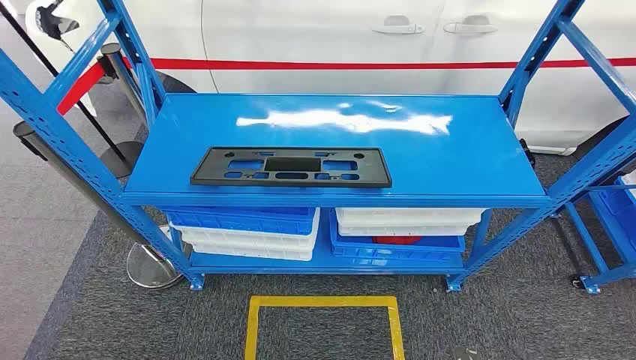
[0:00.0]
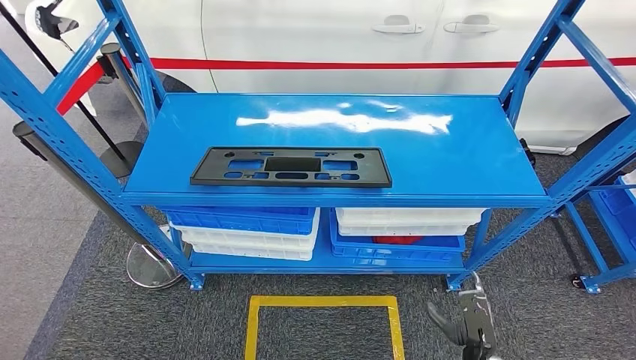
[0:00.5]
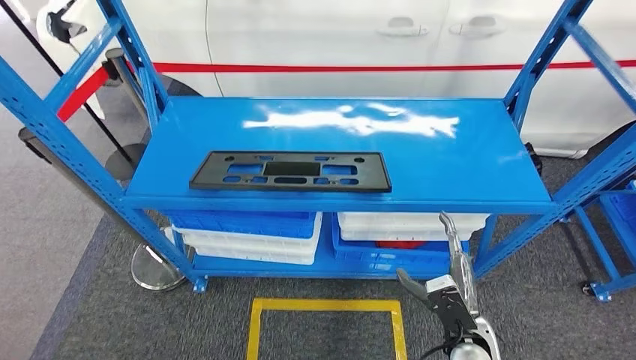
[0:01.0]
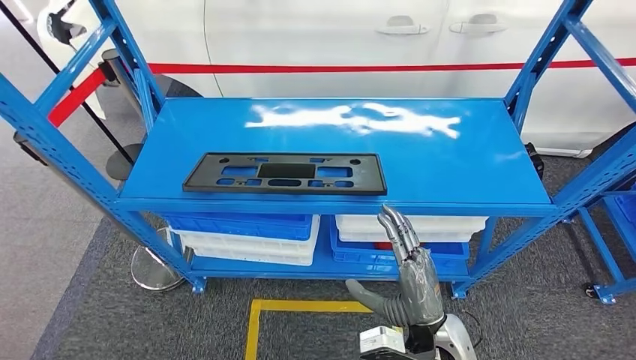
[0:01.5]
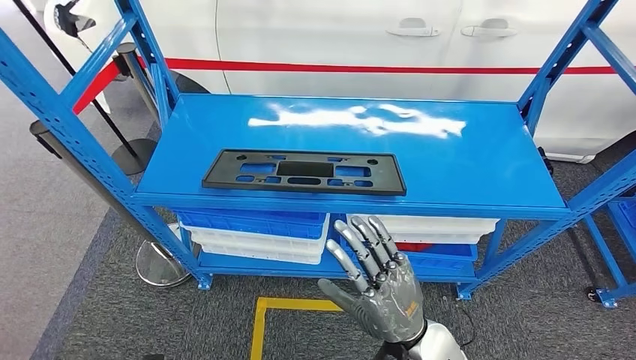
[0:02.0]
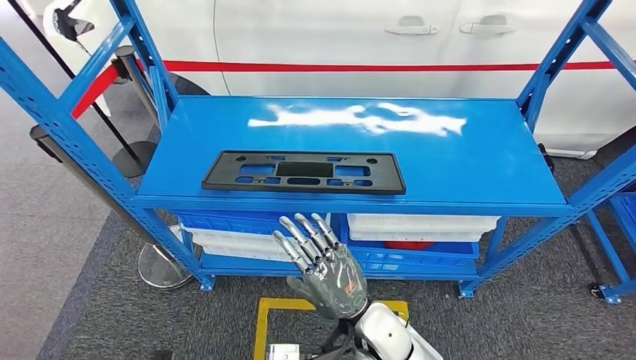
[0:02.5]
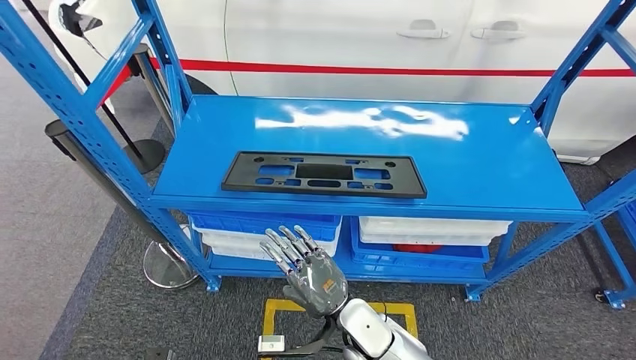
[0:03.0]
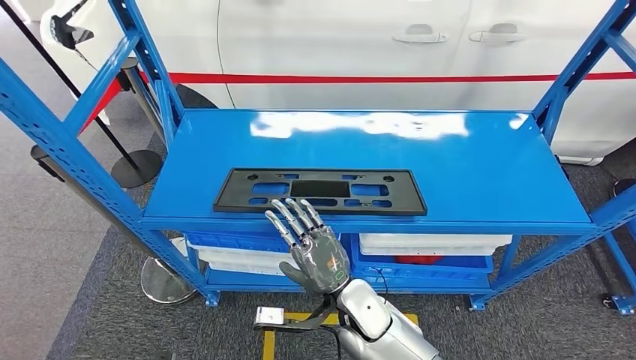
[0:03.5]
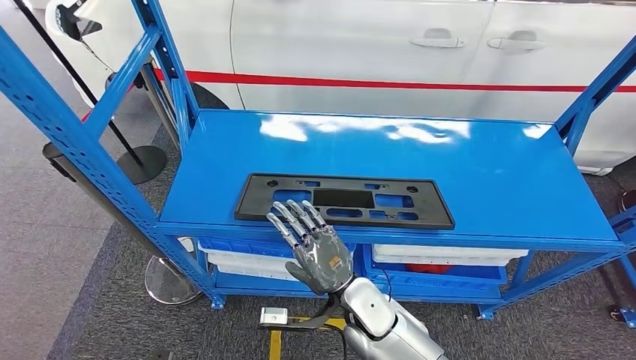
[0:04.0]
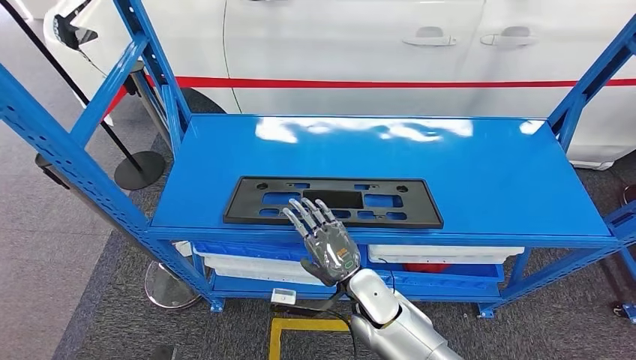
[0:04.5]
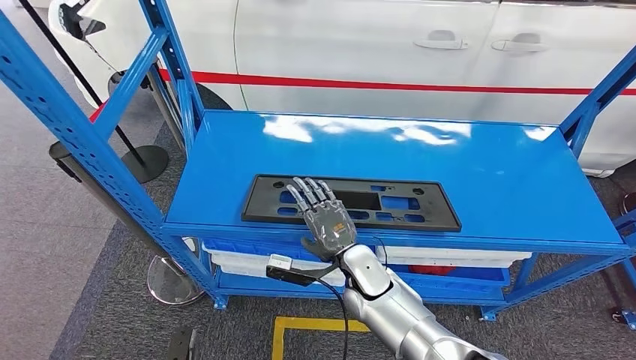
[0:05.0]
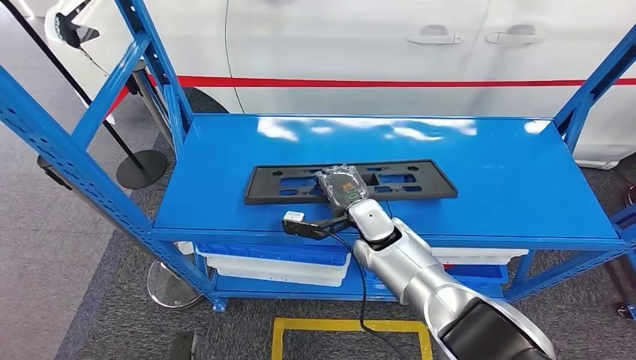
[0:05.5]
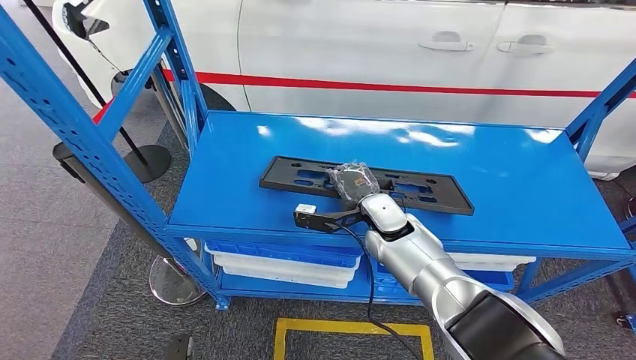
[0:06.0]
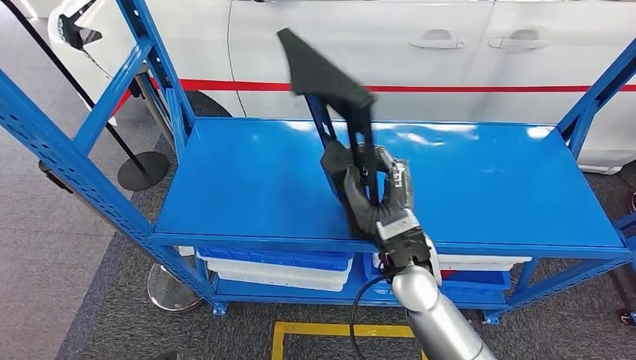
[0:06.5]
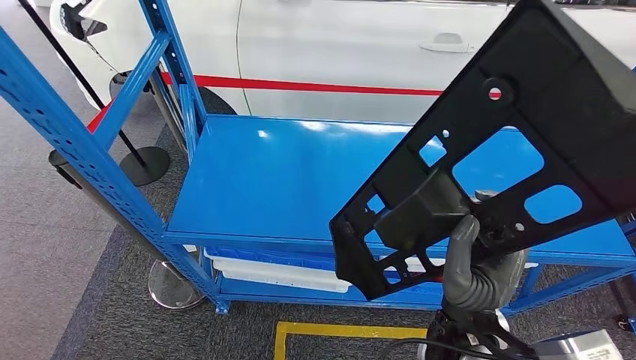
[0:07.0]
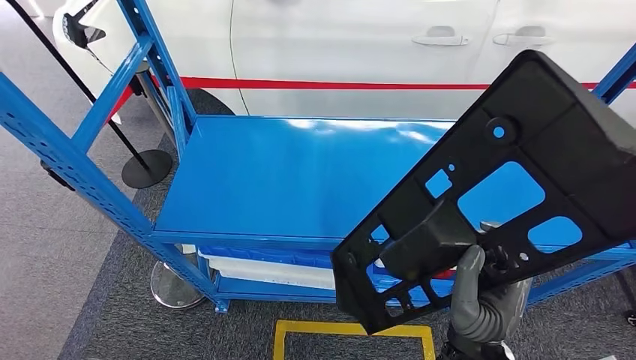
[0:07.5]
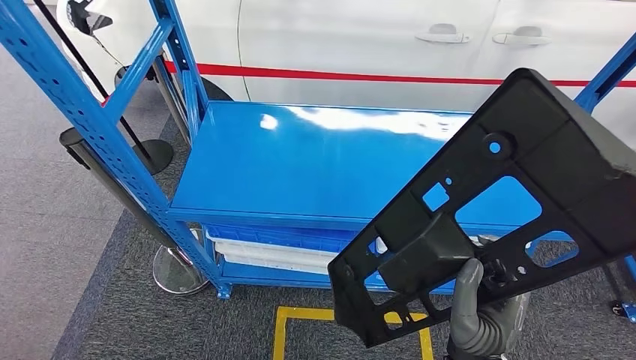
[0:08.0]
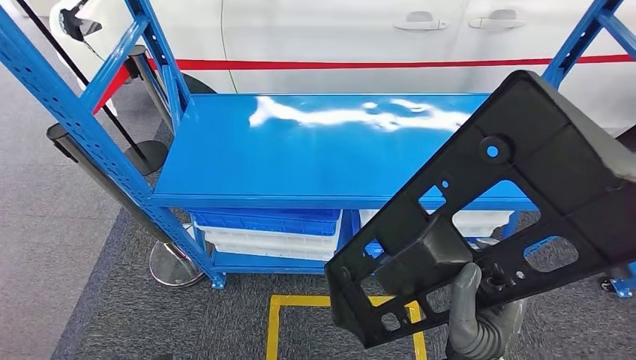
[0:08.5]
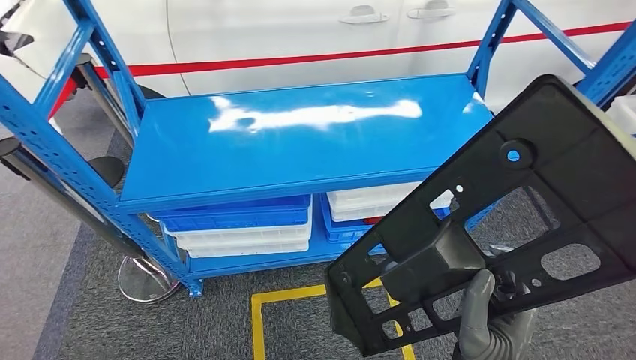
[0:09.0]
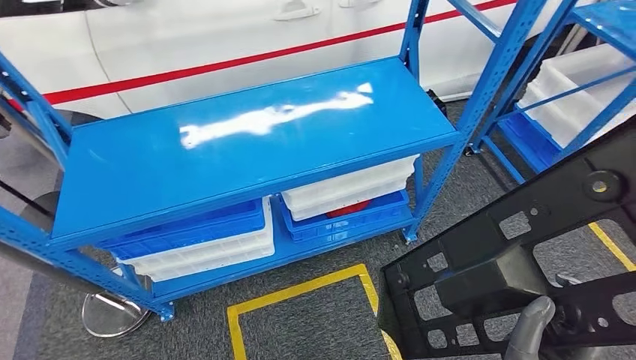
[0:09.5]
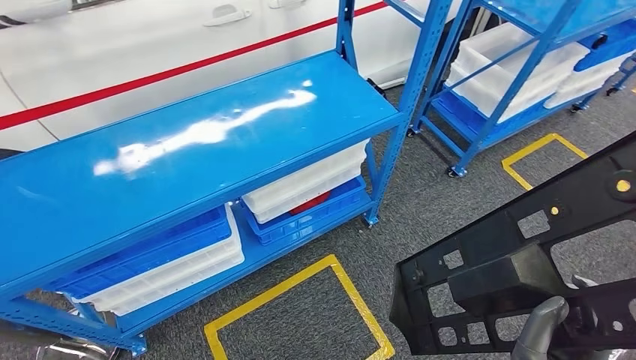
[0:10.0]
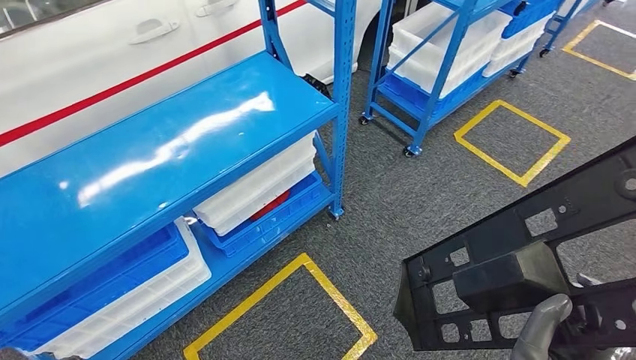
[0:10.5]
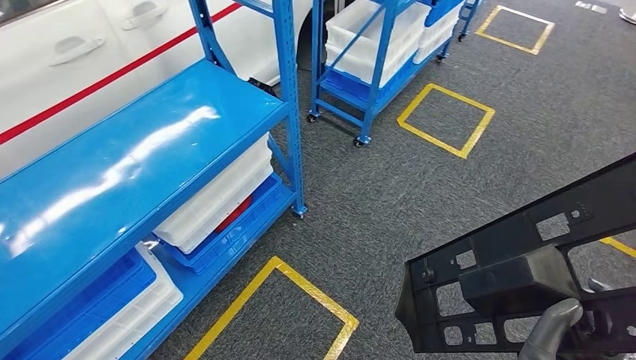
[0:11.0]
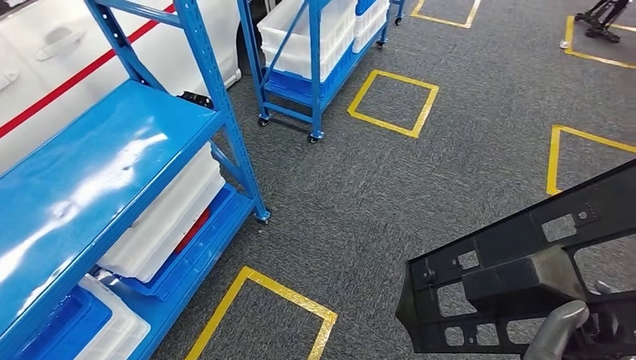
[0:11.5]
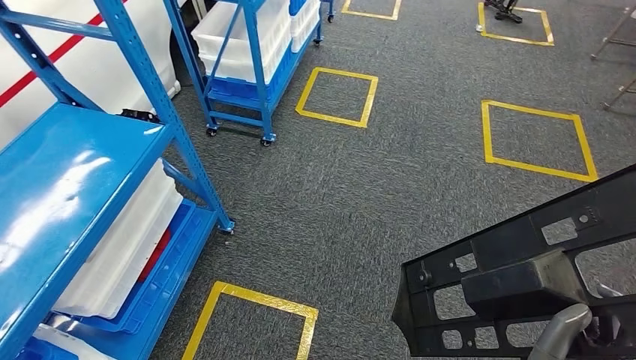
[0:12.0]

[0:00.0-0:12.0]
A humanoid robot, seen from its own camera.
Step, 0:00.0 to 0:07.5: Pick up the large material from the shelf.

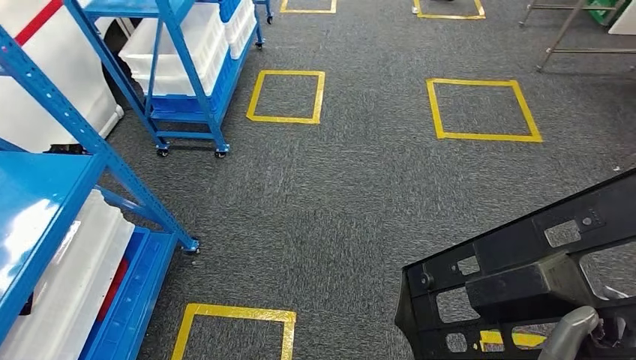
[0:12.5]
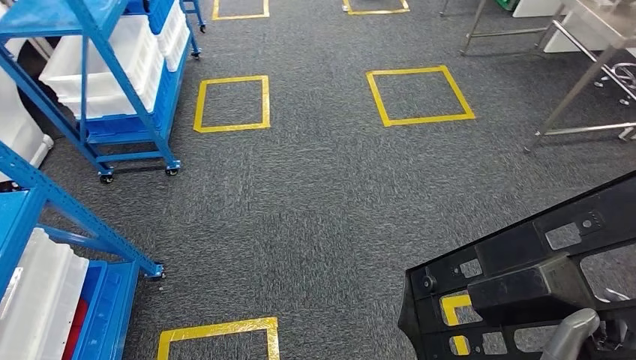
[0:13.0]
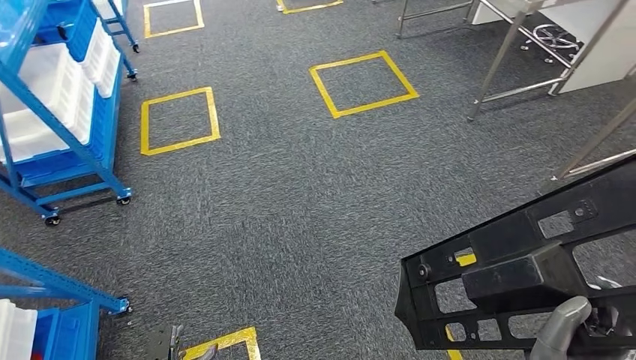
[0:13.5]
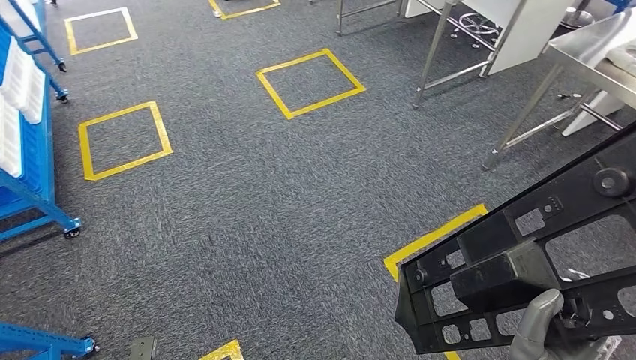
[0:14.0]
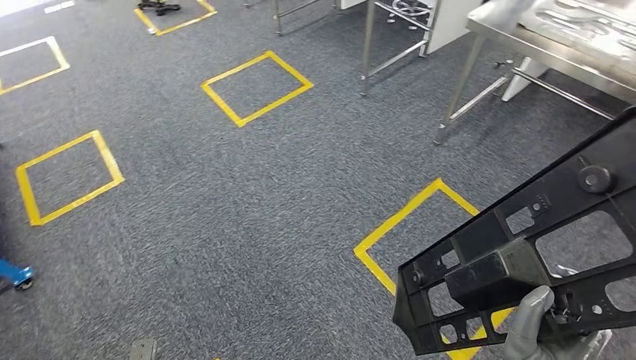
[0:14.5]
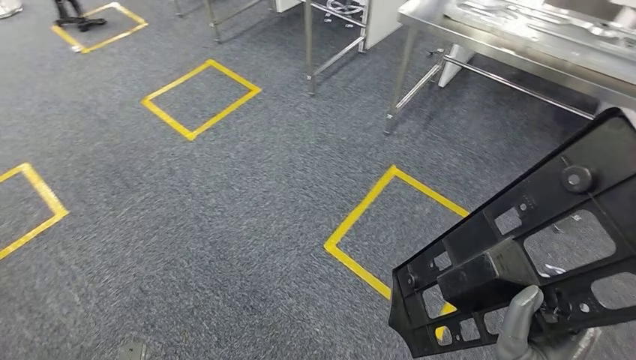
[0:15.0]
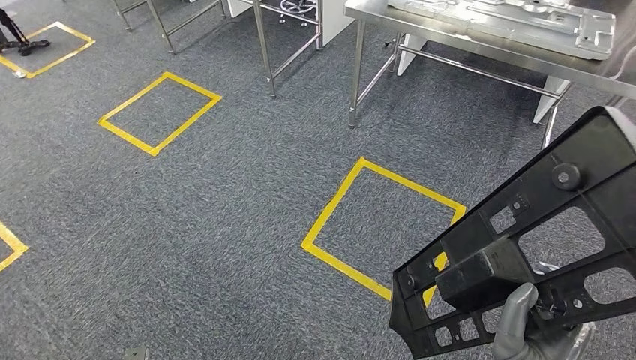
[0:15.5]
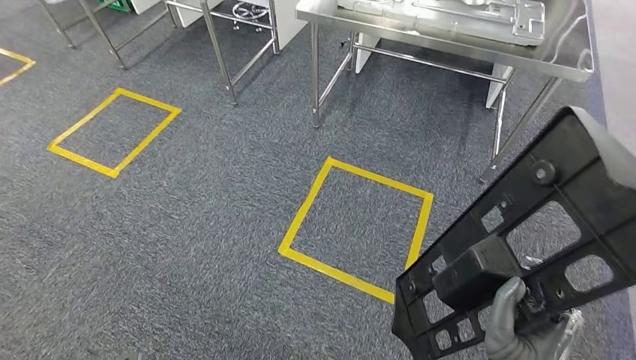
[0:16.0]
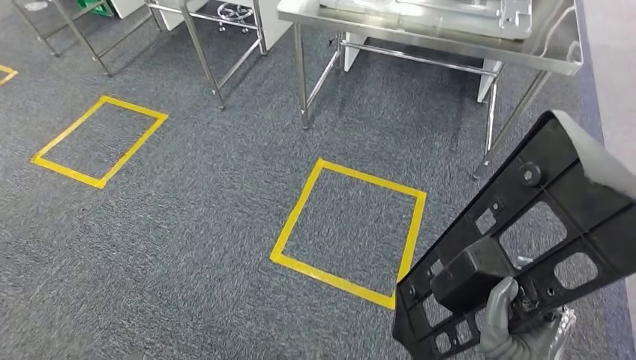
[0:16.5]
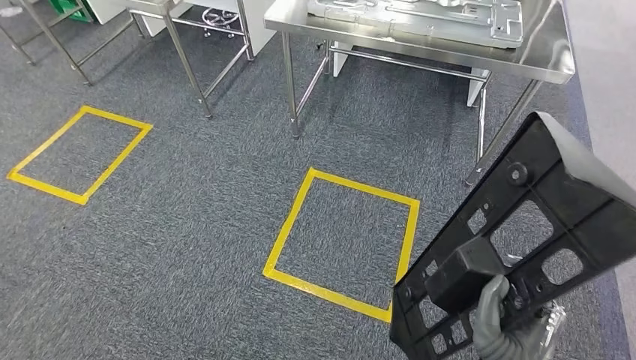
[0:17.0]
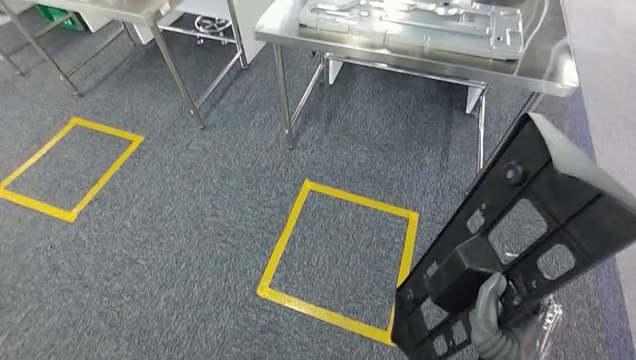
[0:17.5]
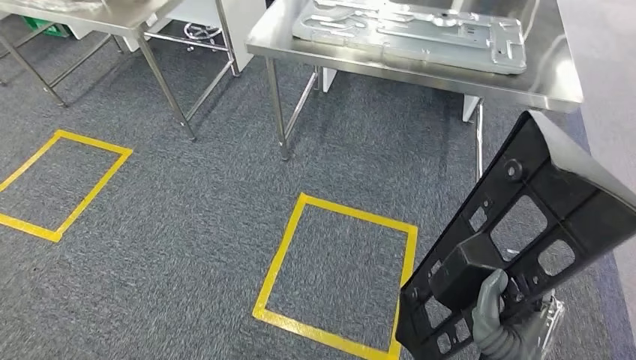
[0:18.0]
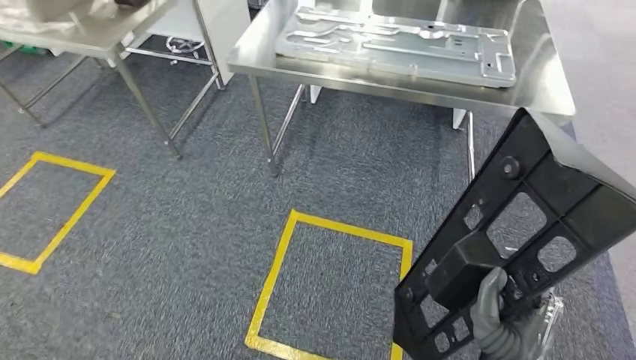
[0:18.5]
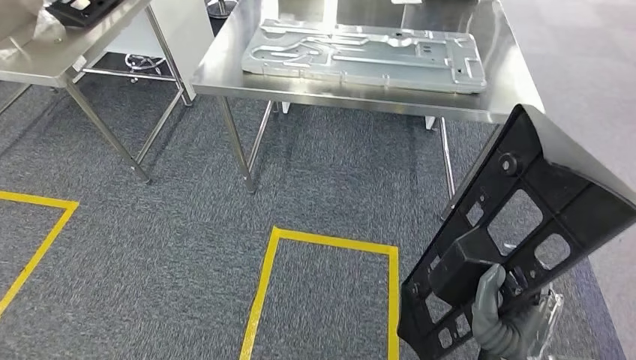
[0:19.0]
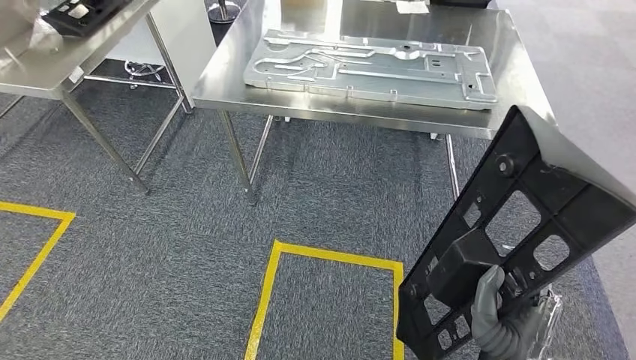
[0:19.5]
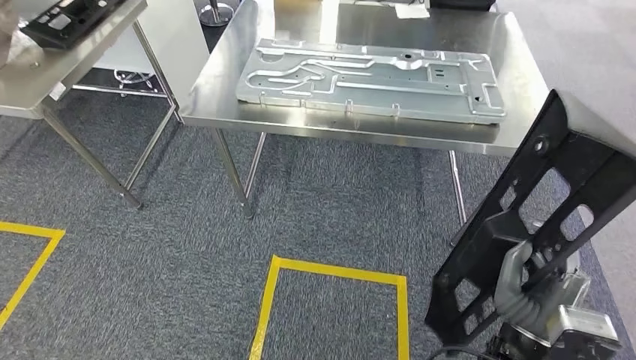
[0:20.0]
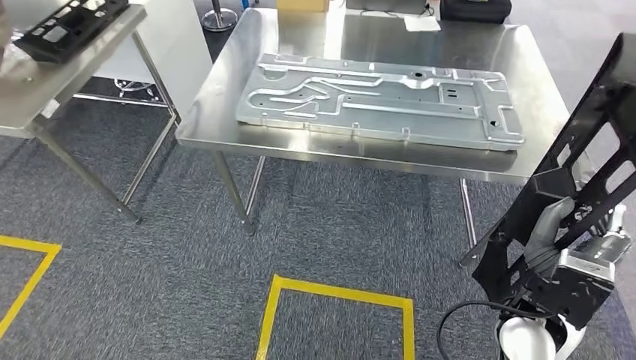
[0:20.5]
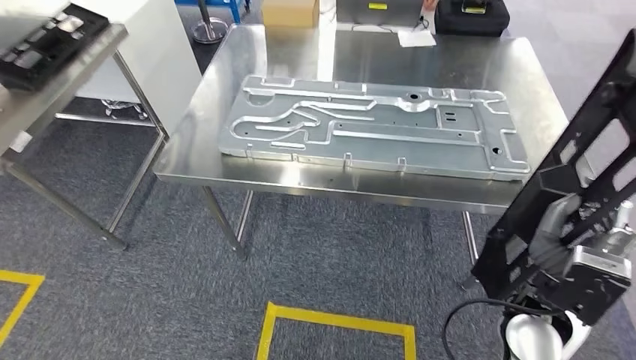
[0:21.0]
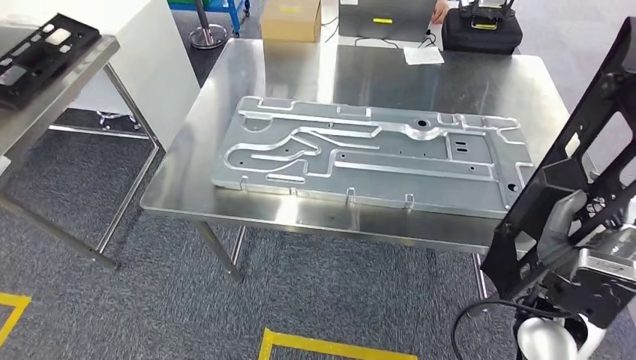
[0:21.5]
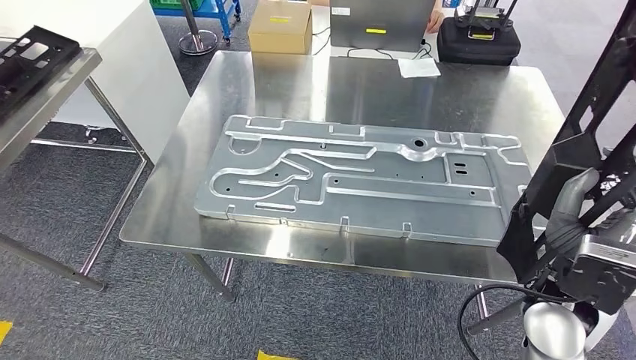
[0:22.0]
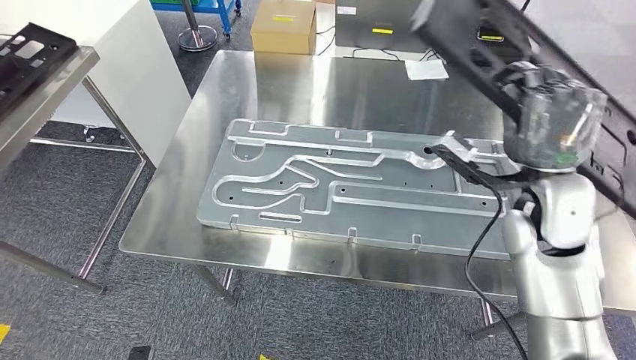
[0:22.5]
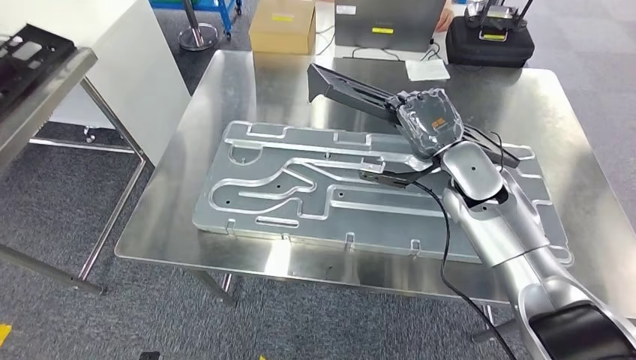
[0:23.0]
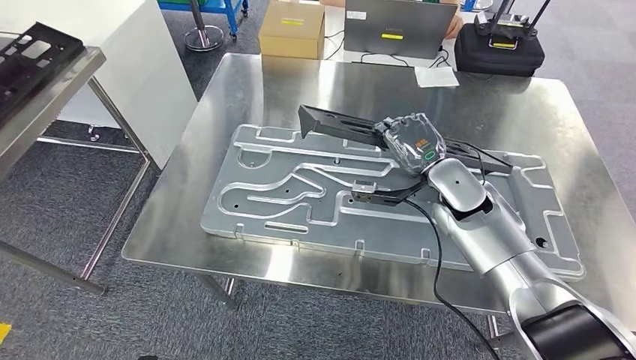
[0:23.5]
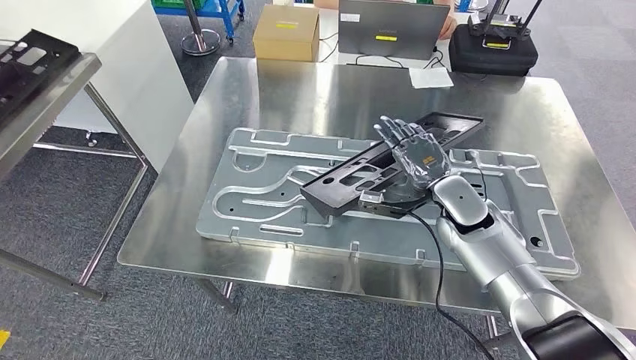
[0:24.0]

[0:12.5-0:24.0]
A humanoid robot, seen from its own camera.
Step, 0:12.5 to 0:20.5: Move the large material to the front of the workbench.
